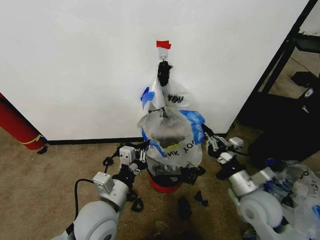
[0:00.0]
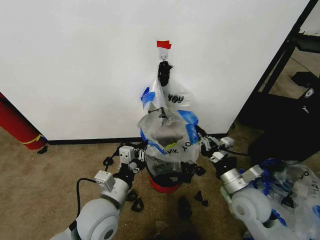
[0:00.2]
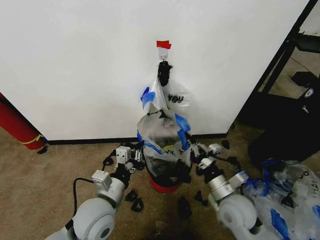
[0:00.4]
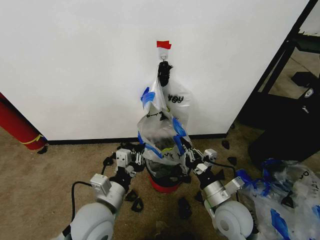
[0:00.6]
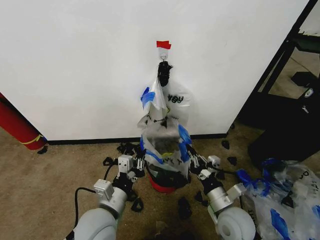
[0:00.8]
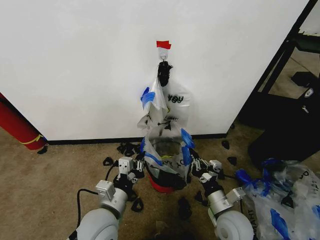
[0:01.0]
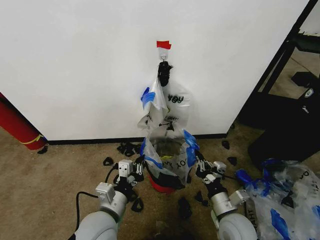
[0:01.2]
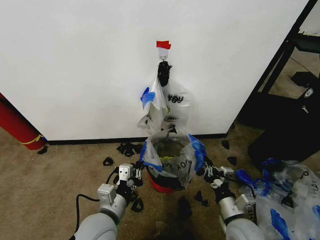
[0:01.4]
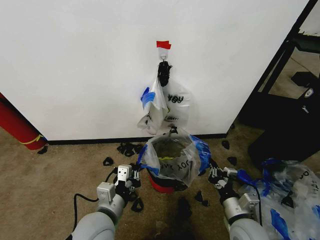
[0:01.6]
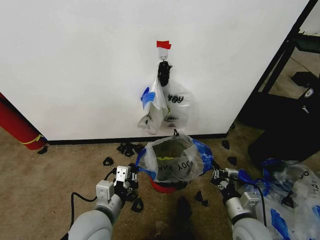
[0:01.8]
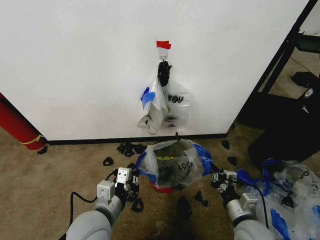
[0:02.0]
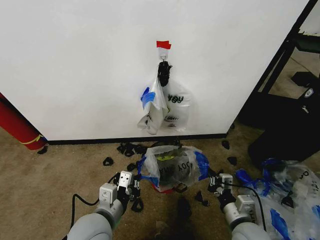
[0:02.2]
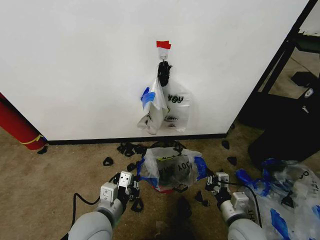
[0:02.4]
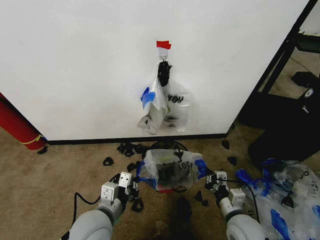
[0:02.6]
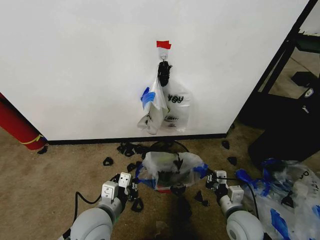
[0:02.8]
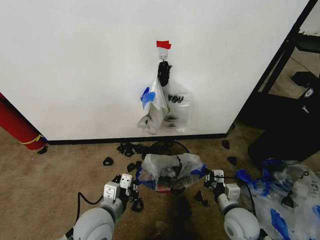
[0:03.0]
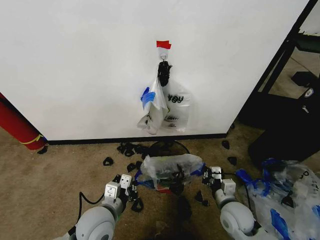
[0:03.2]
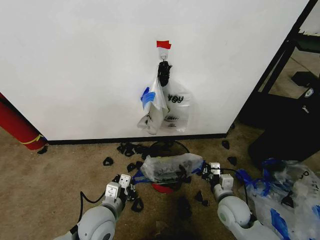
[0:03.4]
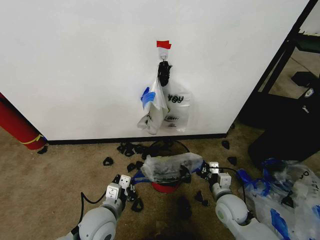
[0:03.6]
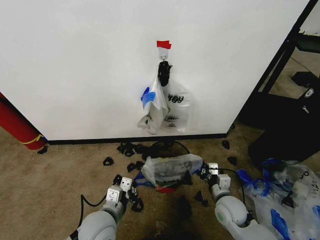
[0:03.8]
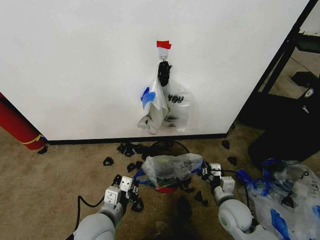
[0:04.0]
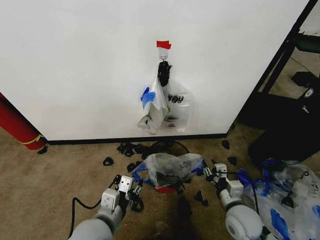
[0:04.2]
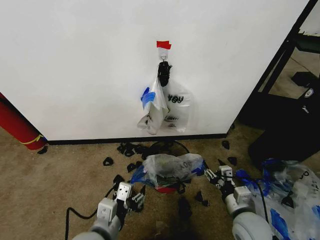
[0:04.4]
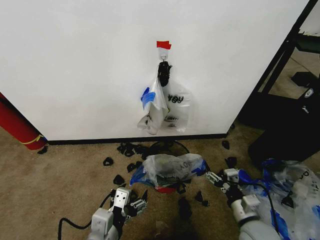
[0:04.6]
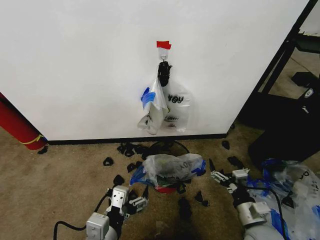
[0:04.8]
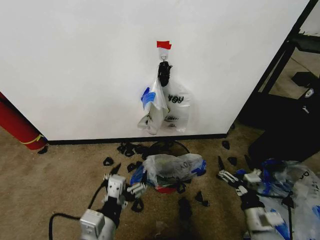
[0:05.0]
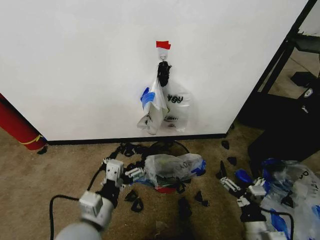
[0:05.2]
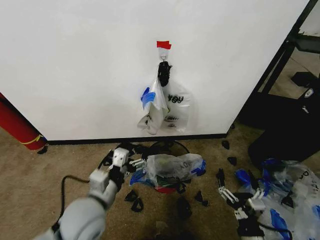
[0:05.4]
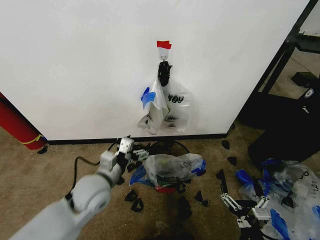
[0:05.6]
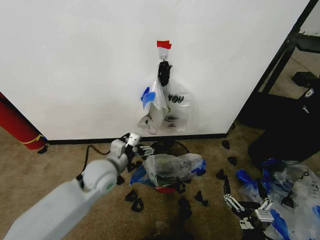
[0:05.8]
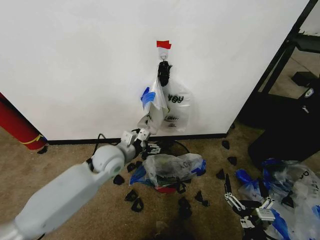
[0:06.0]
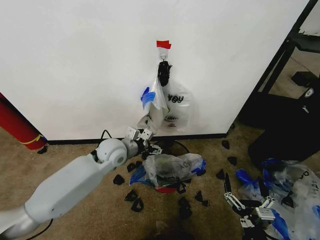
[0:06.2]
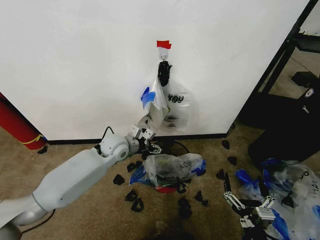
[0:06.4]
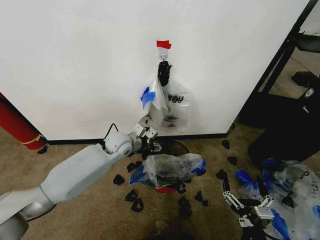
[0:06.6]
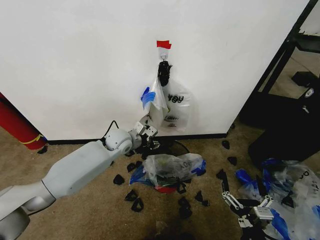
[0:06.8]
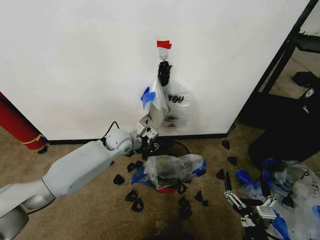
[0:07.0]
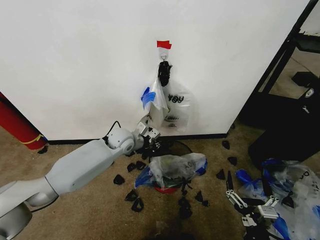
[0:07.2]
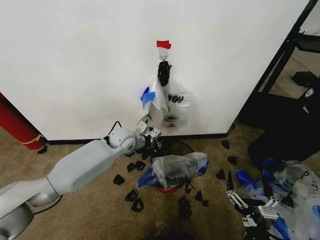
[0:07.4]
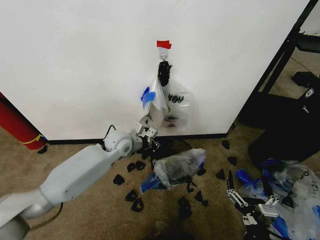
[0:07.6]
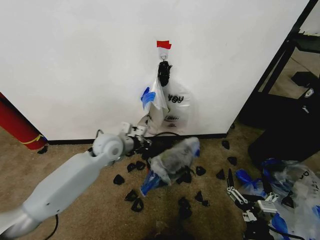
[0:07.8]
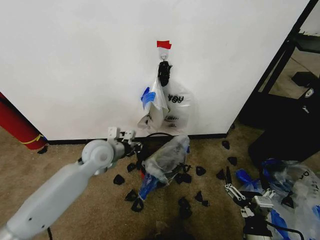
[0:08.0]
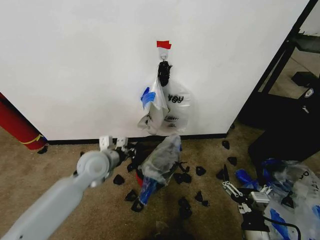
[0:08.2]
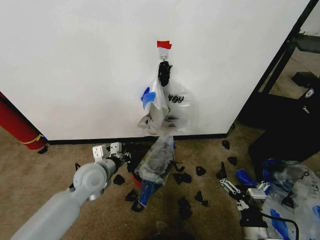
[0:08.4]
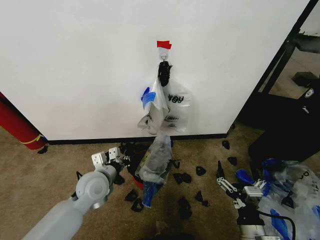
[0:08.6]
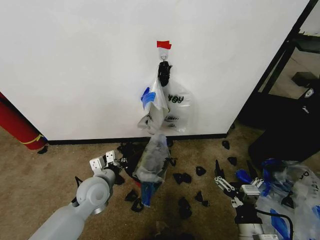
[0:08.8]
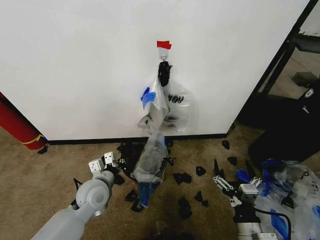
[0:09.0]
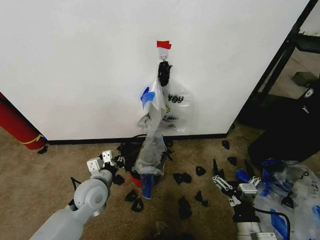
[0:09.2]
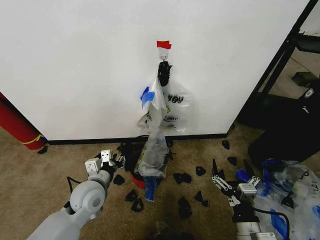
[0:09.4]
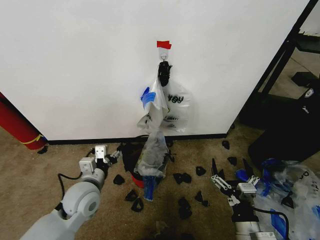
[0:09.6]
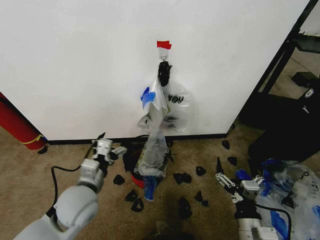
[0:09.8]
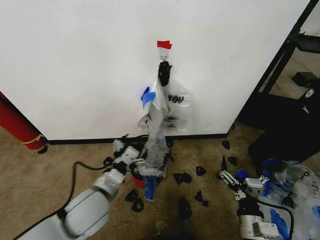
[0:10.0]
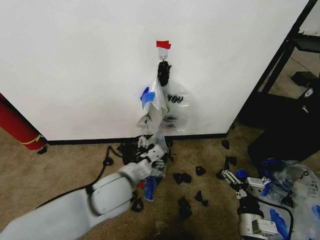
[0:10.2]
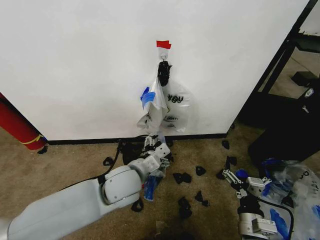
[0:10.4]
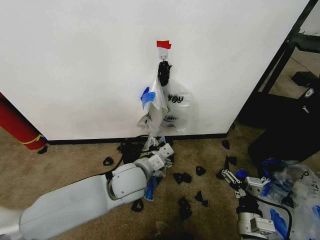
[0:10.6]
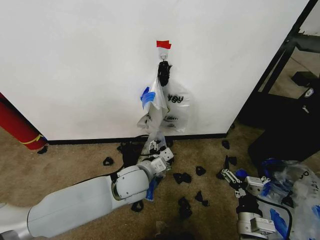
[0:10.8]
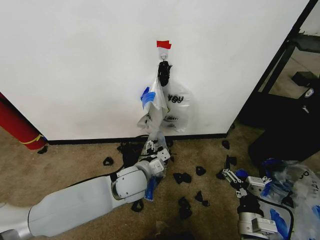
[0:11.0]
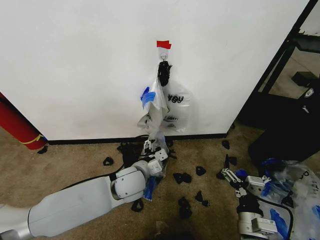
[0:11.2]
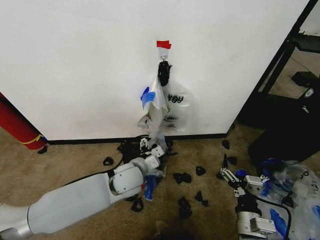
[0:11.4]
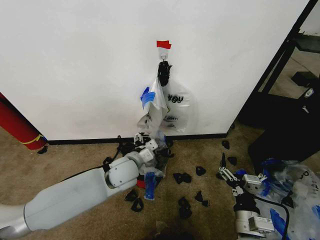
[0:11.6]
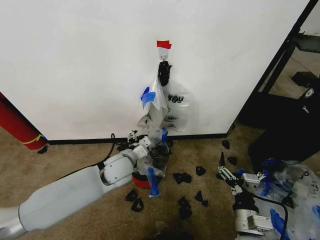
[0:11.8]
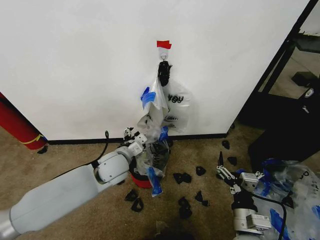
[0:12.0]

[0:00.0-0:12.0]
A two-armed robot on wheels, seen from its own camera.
Task of the whole recording: Pick up the garbage bag from the wall and place it over the trash bin.
0:00.0 to 0:01.6: The right gripper moves downward and backward, about 10 cm.
0:03.0 to 0:04.4: The right gripper opens up, while the left gripper travels backward by roughly 5 cm, and opens up.
0:04.4 to 0:06.0: The left gripper travels forward by roughly 20 cm. The right gripper moves backward, some 15 cm, and opens.
0:06.0 to 0:07.6: The left gripper shifts about 10 cm forward, and closes.
0:07.6 to 0:09.0: The left gripper is displaced backward and downward by approximately 15 cm.
0:09.0 to 0:10.4: The left gripper shifts approximately 15 cm to the right and upward, and opens up.
0:10.4 to 0:12.0: The left gripper shifts some 10 cm forward and to the left.

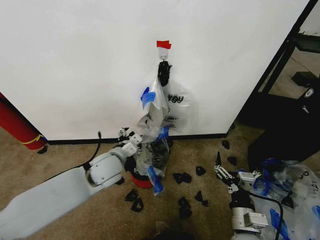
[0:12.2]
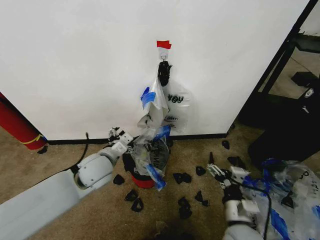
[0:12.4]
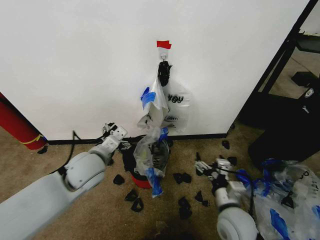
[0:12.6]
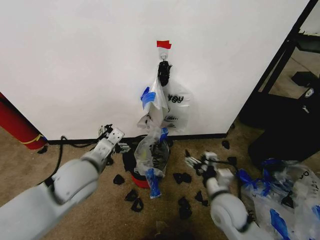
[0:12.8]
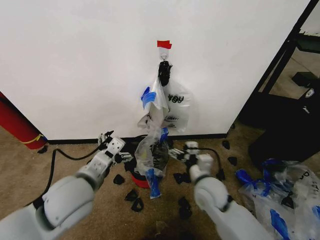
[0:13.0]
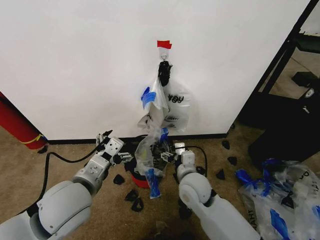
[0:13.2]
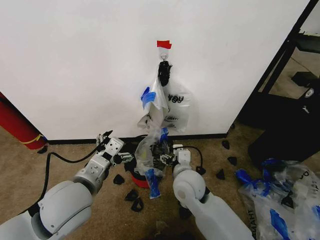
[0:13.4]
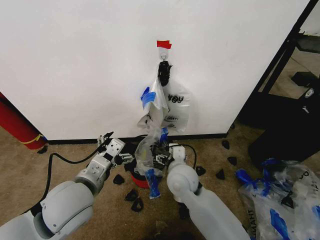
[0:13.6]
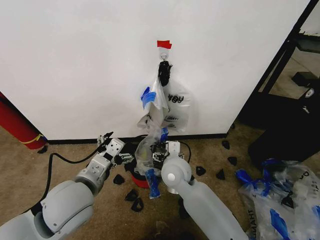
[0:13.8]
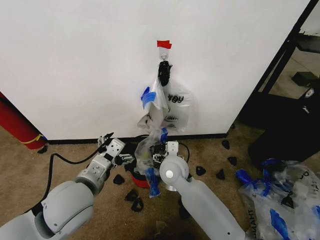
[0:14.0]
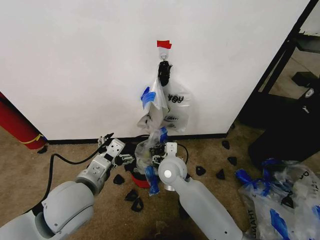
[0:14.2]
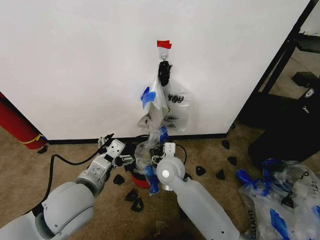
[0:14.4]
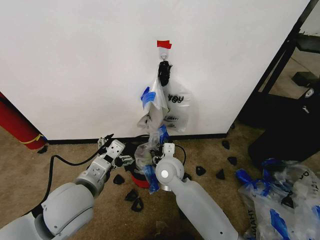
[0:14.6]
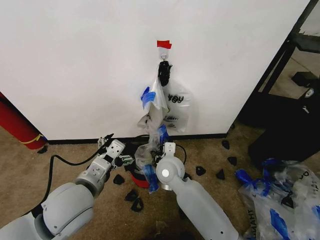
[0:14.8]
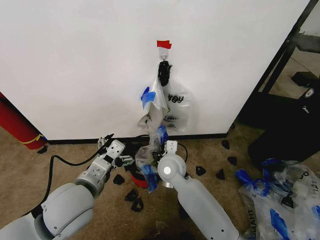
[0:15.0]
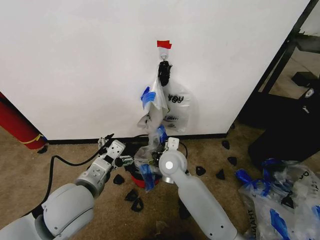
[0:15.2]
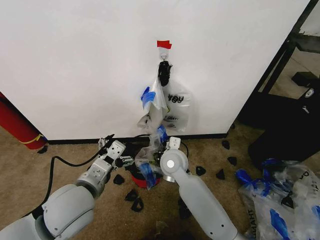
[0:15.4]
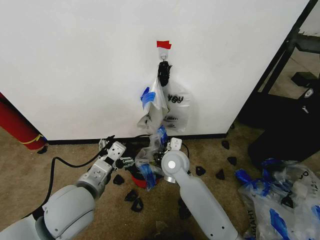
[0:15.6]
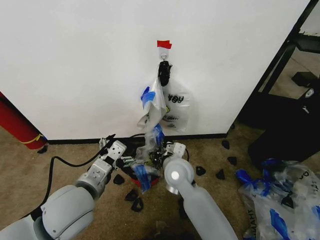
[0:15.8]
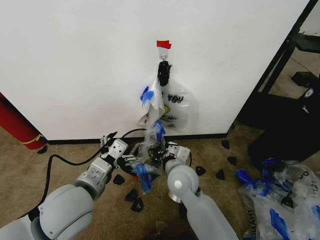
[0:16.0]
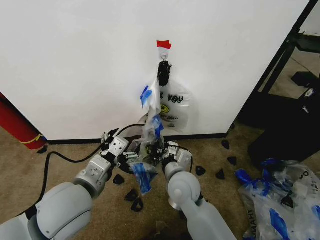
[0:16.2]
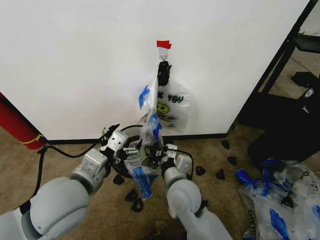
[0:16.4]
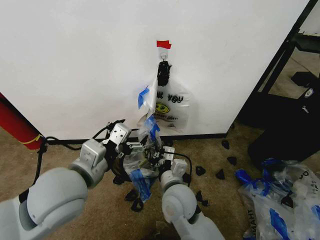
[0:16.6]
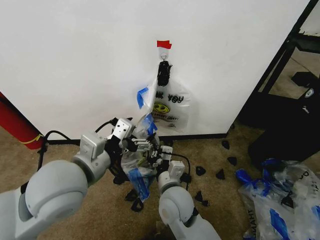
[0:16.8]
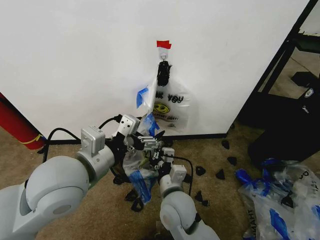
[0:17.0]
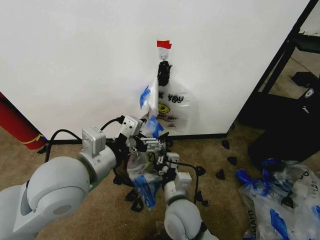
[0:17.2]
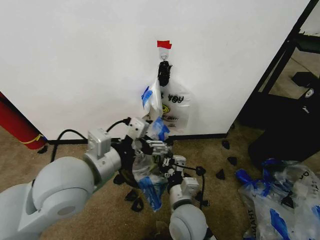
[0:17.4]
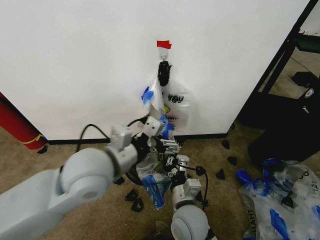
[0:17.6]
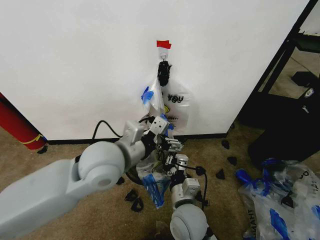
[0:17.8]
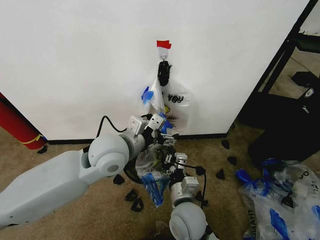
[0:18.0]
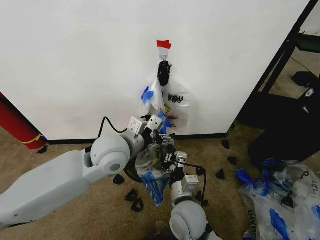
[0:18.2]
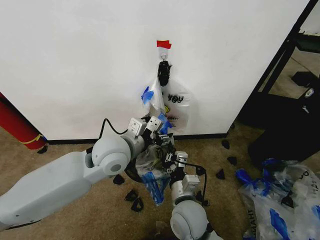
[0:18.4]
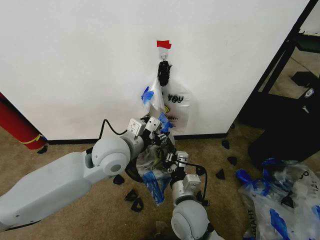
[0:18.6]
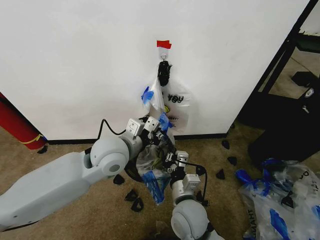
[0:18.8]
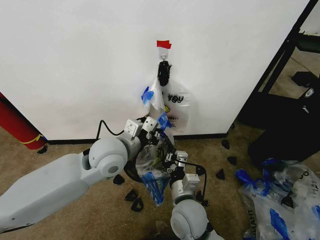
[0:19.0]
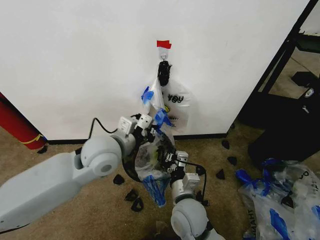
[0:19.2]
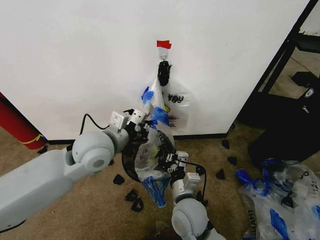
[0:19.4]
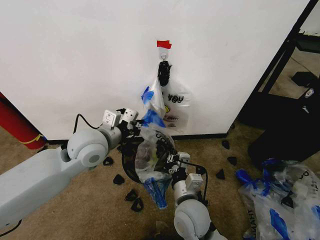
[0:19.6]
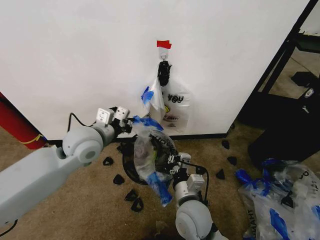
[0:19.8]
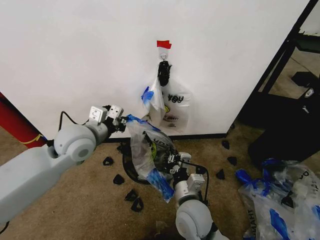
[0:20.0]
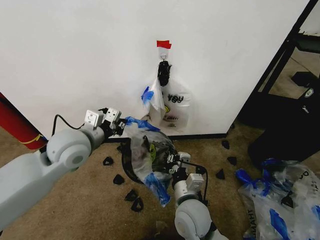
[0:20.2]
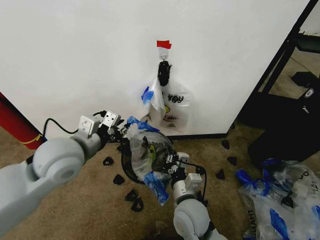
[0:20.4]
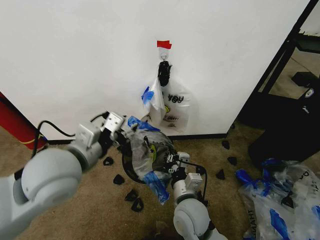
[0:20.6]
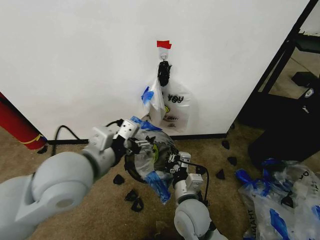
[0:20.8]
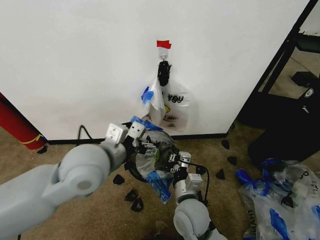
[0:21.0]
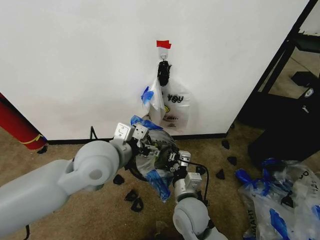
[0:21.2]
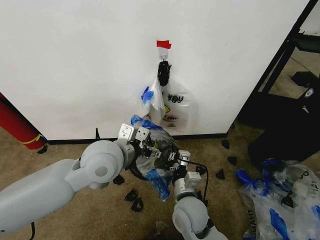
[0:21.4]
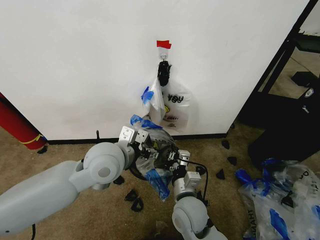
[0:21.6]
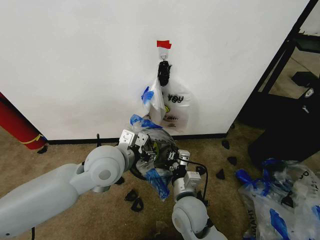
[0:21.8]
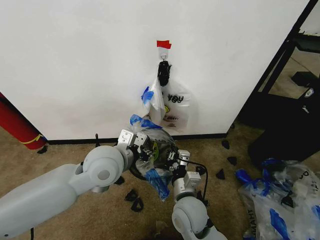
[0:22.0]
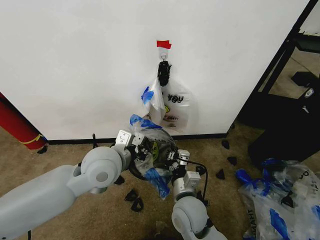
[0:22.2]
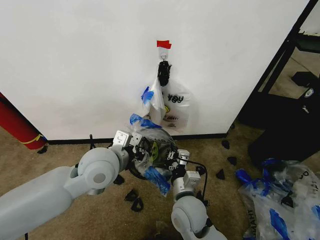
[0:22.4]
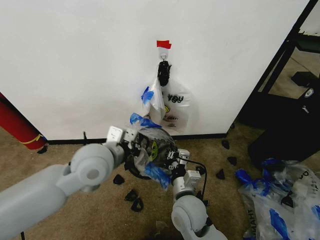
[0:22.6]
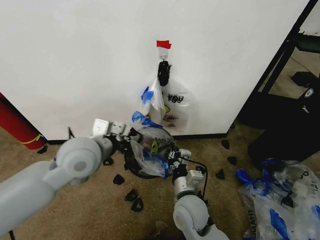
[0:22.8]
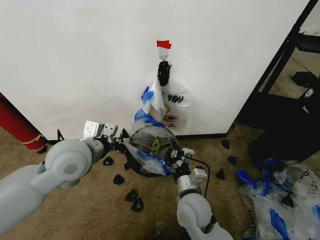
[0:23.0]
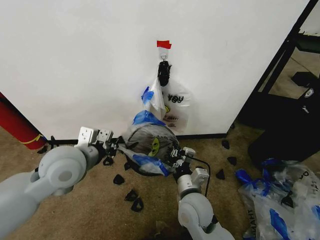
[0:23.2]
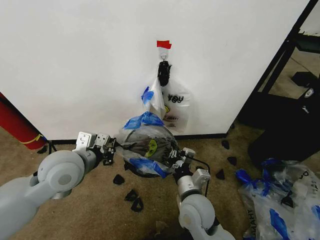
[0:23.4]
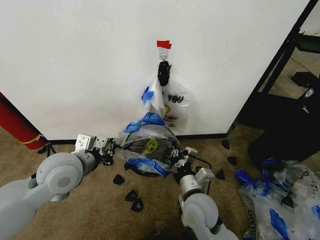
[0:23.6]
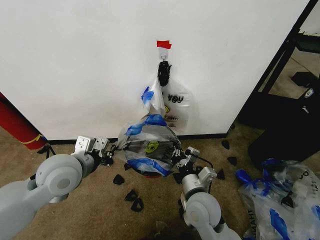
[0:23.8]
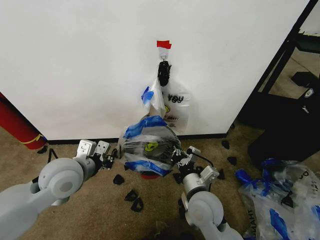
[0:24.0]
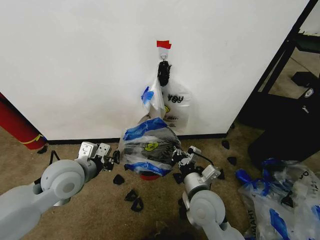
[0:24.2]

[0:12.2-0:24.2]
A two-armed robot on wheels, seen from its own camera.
Task of the whole recording: Pick up the garbage bag from the wall and place it over the trash bin.
0:12.2 to 0:13.8: The left gripper goes about 15 cm backward and upward. Meanwhile the right gripper heads forward and to the left, covering approximately 25 cm.
0:13.8 to 0:15.2: The right gripper closes up.
0:15.2 to 0:16.6: The right gripper goes some 10 cm backward. Meanwhile the left gripper shifts about 5 cm upward.
0:16.6 to 0:18.2: The right gripper ends up roughly 5 cm from where it was. The left gripper travels forward and to the right by approximately 15 cm.
0:18.2 to 0:19.8: The left gripper travels to the left by some 10 cm, and closes its fingers.
0:19.8 to 0:21.2: The left gripper goes about 10 cm backward and to the right, and opens its fingers.
0:21.2 to 0:22.6: The left gripper closes.
0:22.6 to 0:24.2: The left gripper shifts some 10 cm to the left and downward; the right gripper moves some 5 cm.
